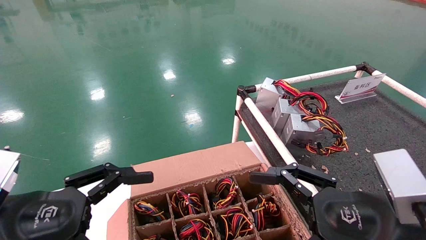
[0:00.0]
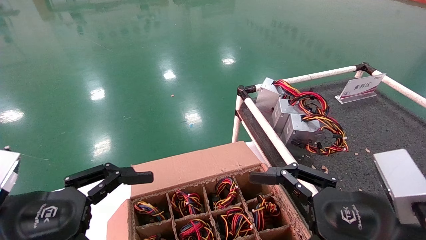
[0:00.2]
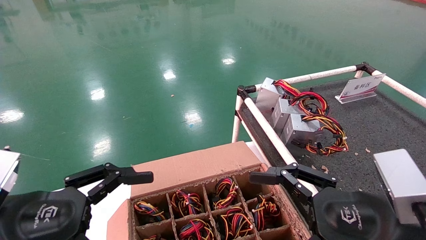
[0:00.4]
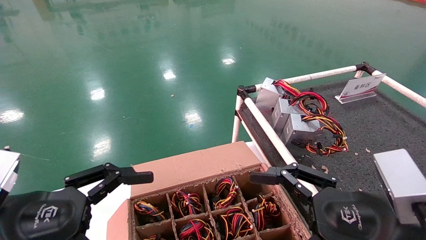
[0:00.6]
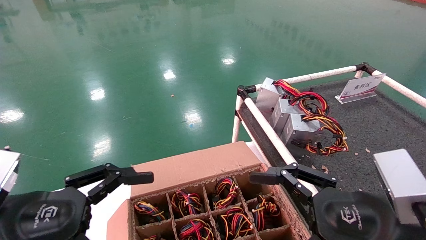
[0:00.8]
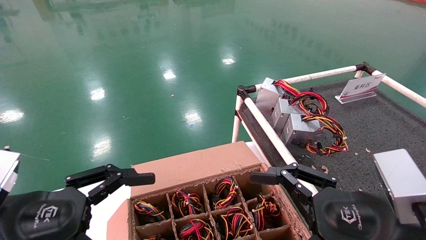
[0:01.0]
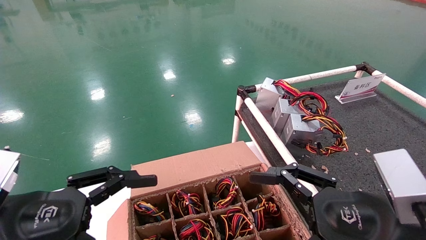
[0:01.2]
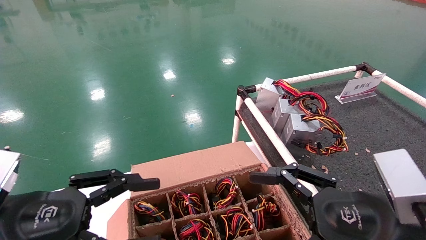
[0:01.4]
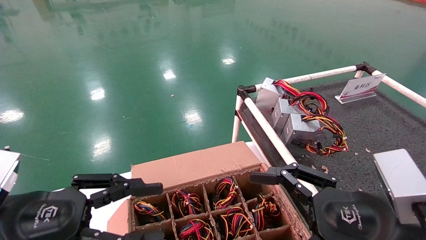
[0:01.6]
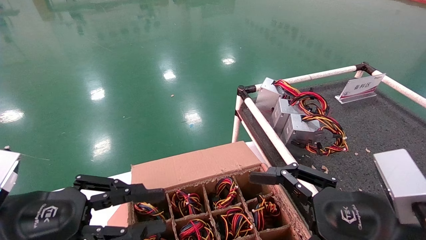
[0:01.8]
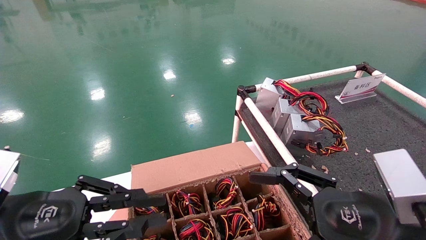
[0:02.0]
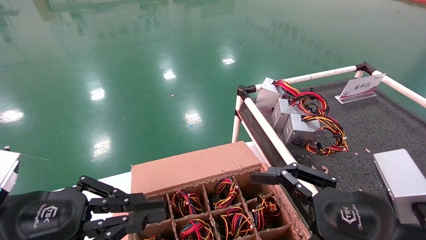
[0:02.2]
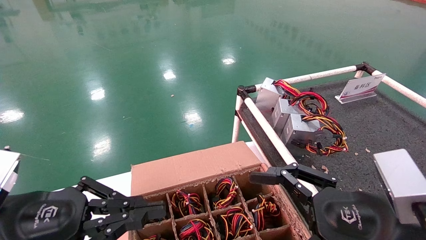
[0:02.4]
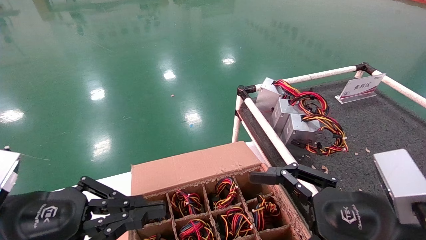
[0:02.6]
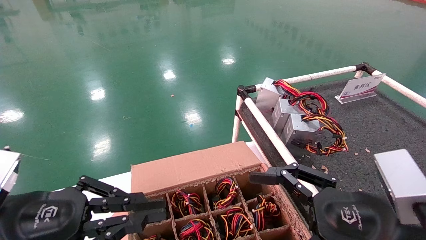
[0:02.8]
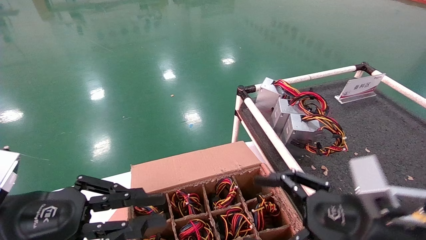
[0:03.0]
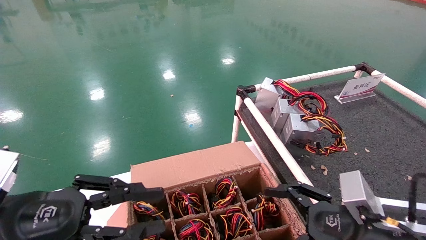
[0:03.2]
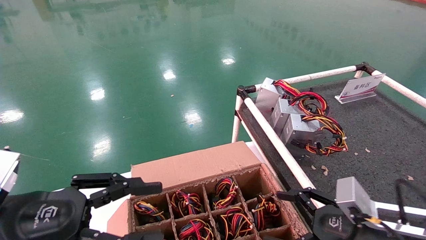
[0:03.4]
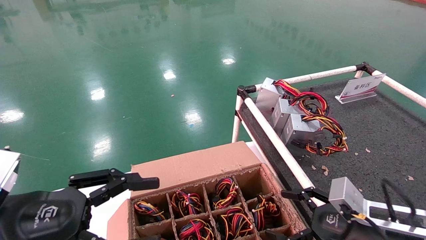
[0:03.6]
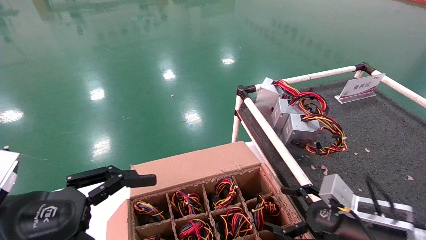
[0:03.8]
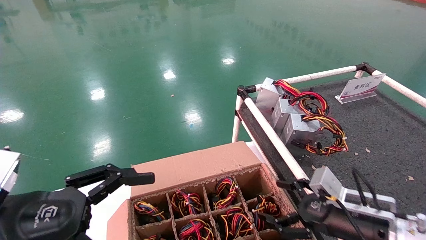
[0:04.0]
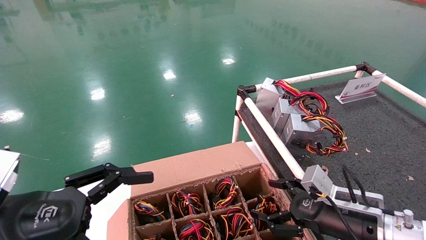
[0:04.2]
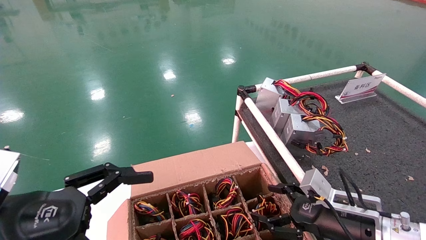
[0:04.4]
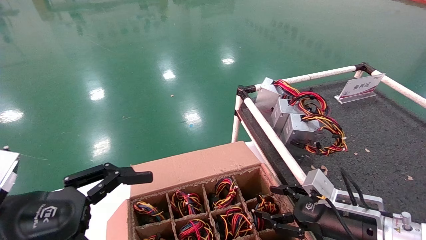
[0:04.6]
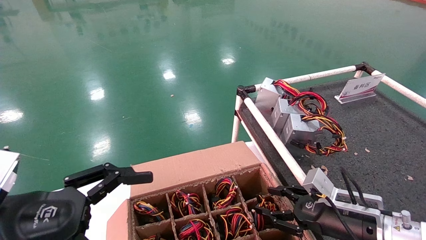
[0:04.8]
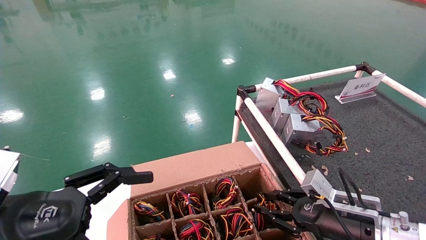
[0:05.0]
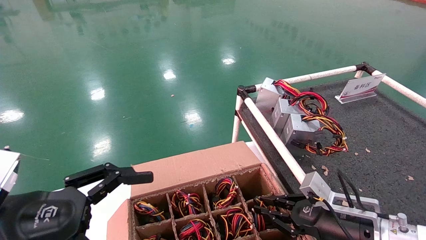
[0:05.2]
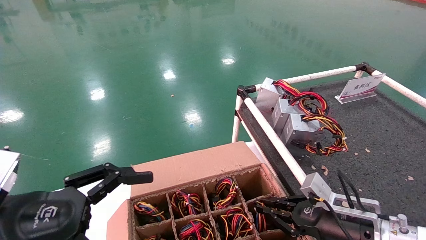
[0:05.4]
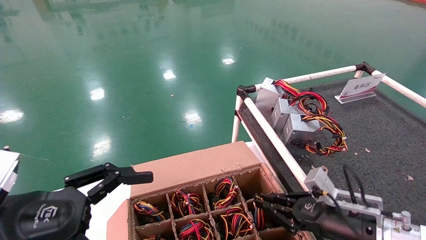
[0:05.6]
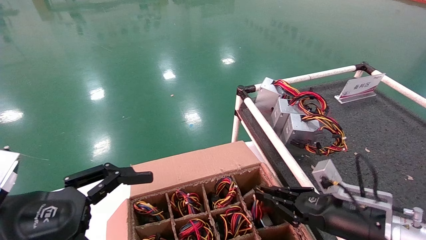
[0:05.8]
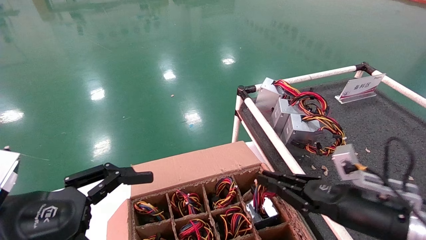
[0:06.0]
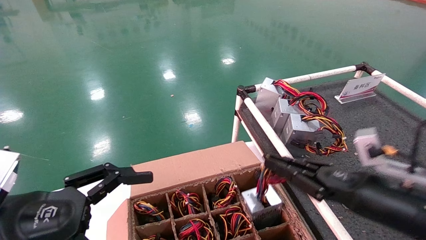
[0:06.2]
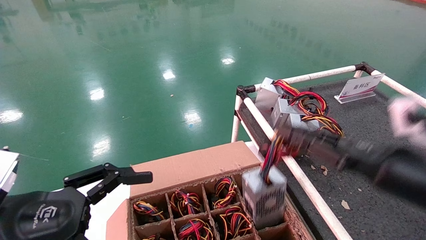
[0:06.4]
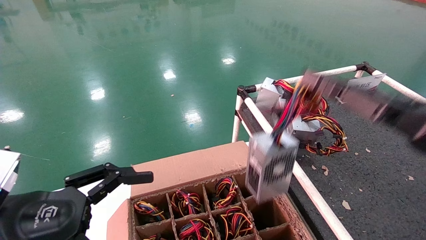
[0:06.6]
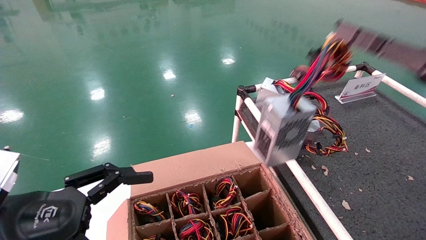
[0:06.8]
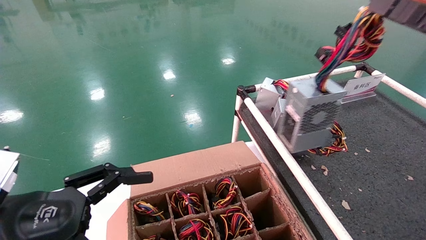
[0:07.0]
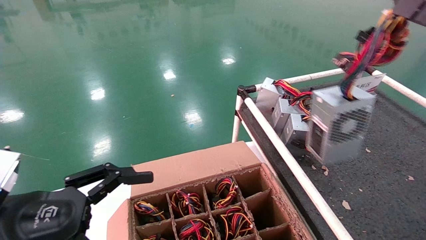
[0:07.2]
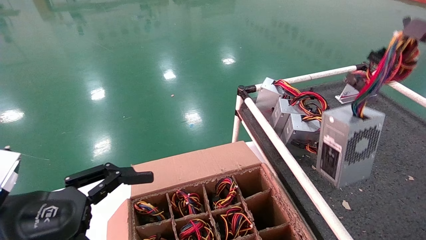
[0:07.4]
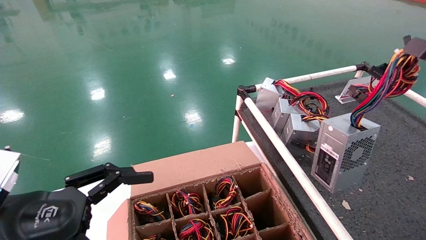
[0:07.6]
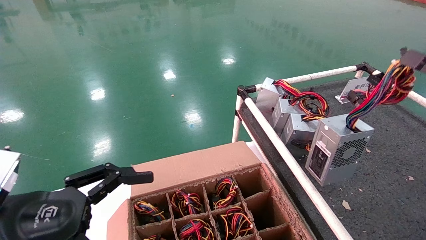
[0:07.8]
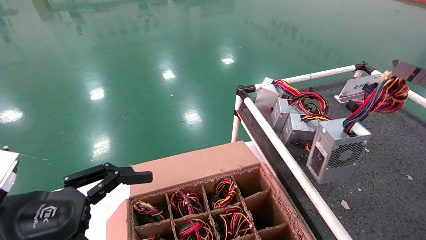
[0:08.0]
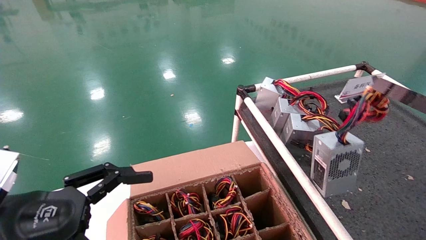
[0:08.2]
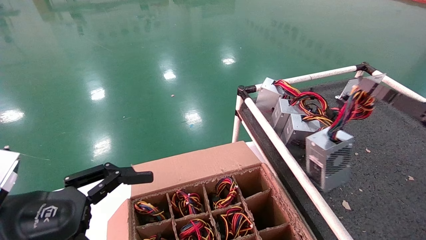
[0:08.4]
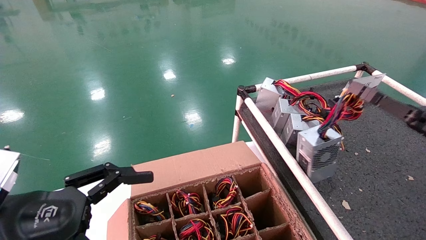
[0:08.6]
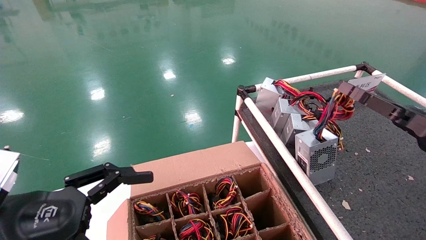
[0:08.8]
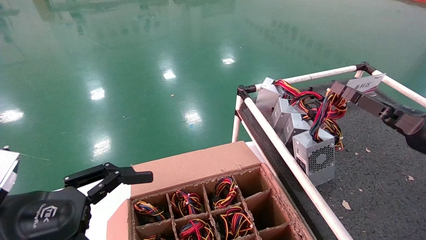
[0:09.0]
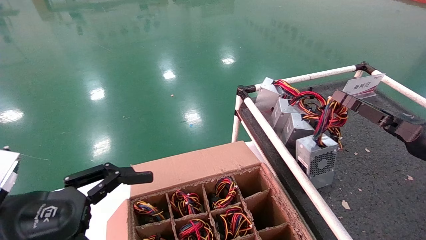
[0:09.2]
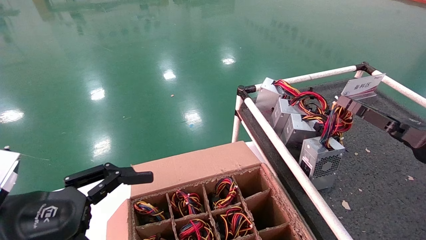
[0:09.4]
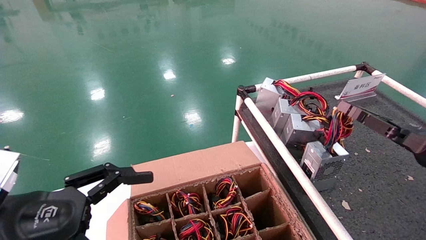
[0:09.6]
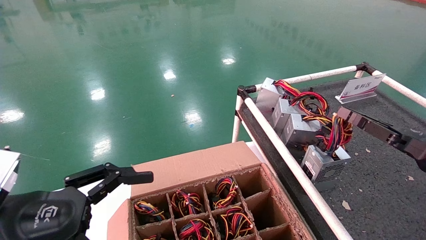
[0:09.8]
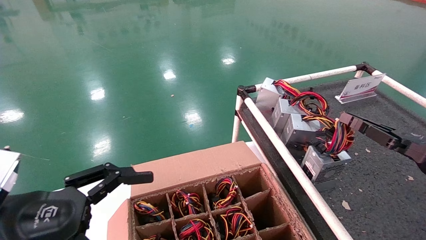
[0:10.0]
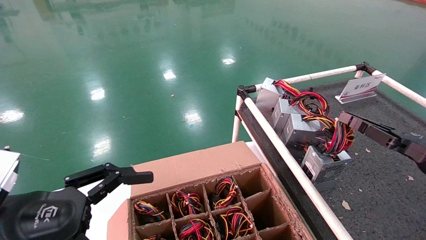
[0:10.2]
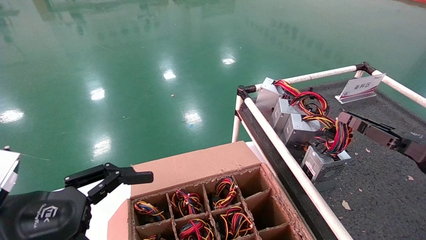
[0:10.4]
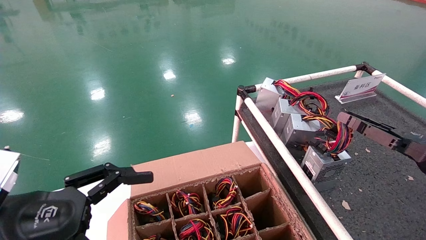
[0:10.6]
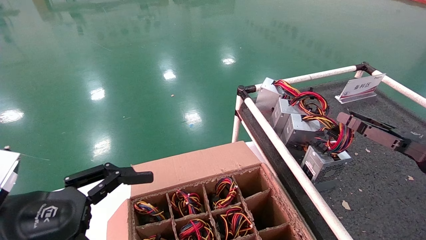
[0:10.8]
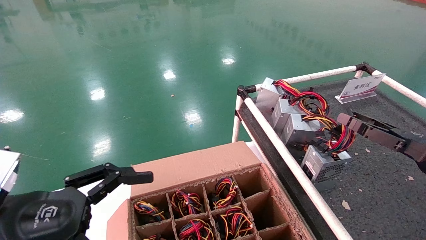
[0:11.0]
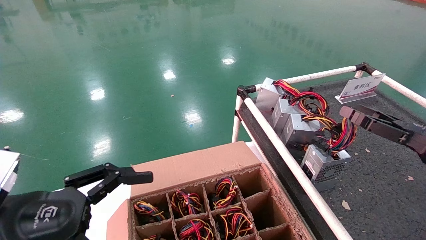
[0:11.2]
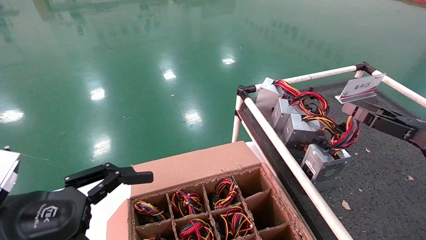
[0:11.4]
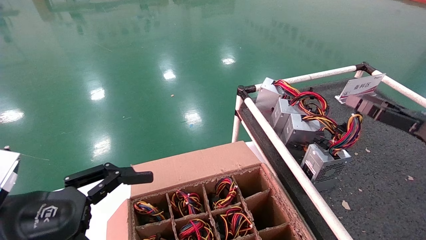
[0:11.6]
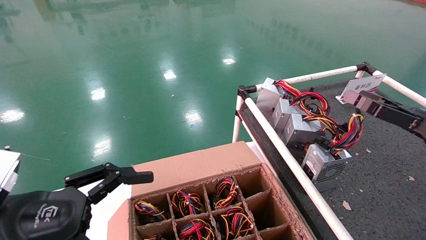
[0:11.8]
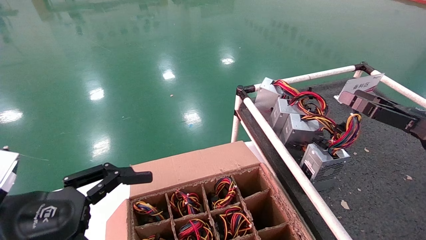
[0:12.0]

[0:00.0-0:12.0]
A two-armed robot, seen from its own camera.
Step, 0:00.8 to 0:05.2: Grab and lift the power supply from the large box.
Step, 0:05.4 to 0:10.2: Place the power supply on the operating table.
0:00.0 to 0:01.6: The left gripper closes.
0:01.6 to 0:03.0: The left gripper closes.
0:03.0 to 0:04.4: The right gripper shifts about 10 cm forward and downward, while the left gripper opens up.
0:04.4 to 0:06.0: The right gripper ends up approximately 5 cm from where it was, and closes its fingers.
0:06.0 to 0:07.6: The right gripper is displaced upward, to the right and backward by roughly 25 cm.
0:07.6 to 0:09.0: The right gripper moves forward and downward, about 15 cm.
0:09.0 to 0:10.4: The grippers make only small movements.
0:10.4 to 0:12.0: The right gripper ends up about 5 cm from where it was, and opens up.

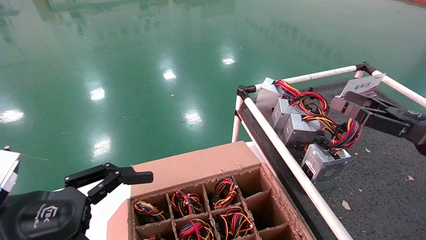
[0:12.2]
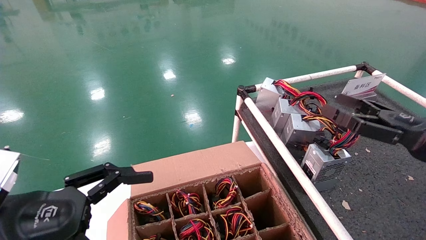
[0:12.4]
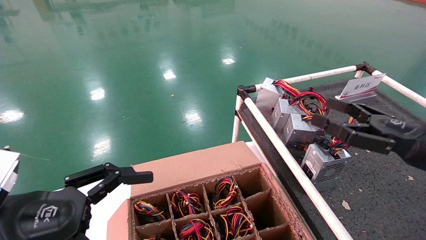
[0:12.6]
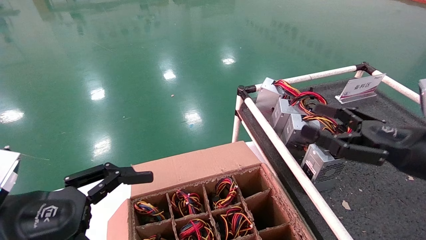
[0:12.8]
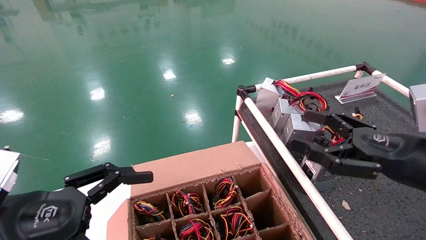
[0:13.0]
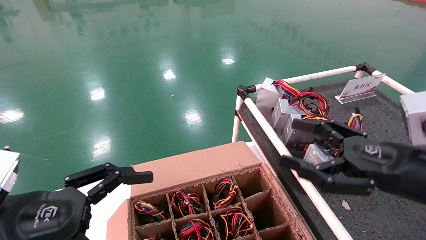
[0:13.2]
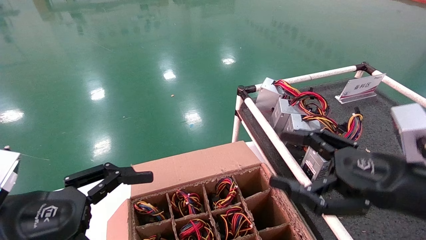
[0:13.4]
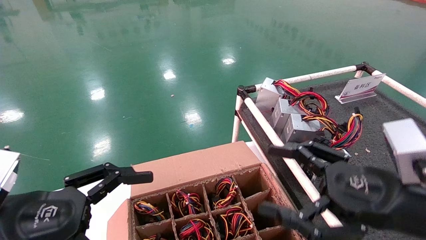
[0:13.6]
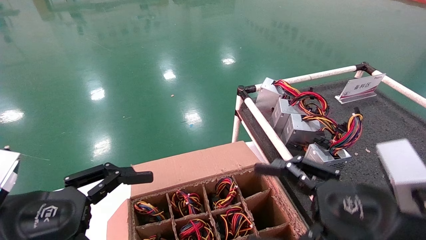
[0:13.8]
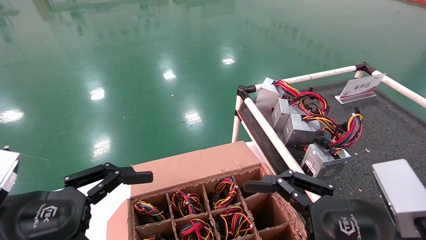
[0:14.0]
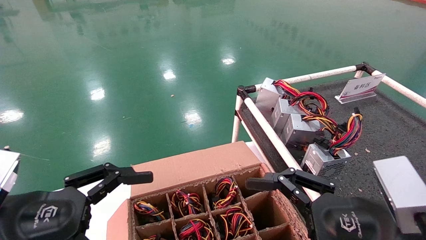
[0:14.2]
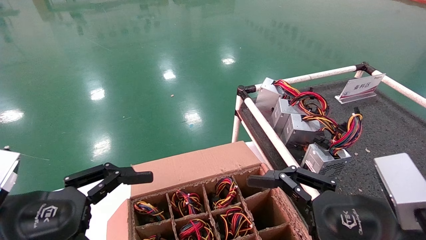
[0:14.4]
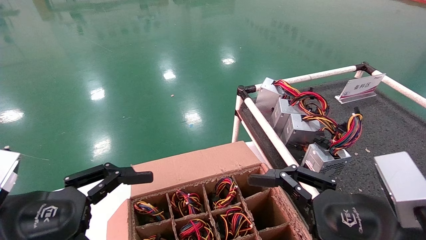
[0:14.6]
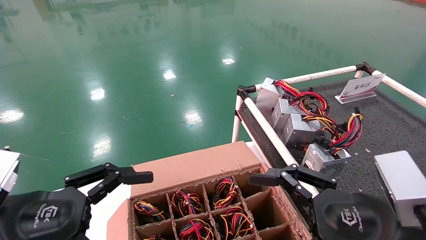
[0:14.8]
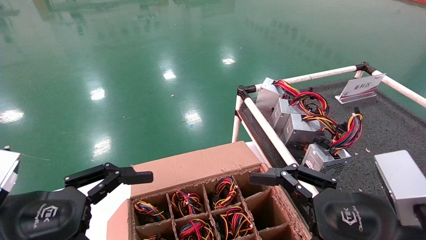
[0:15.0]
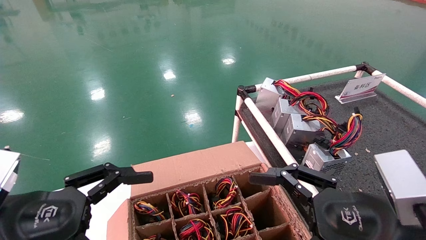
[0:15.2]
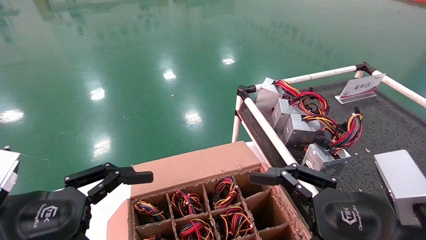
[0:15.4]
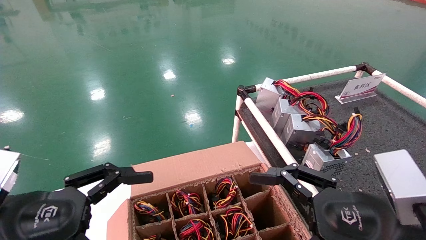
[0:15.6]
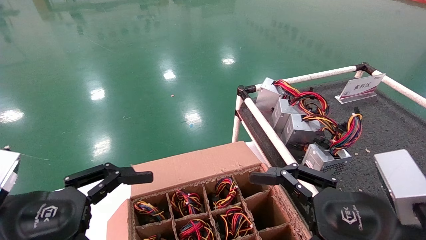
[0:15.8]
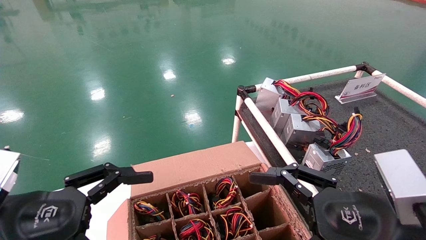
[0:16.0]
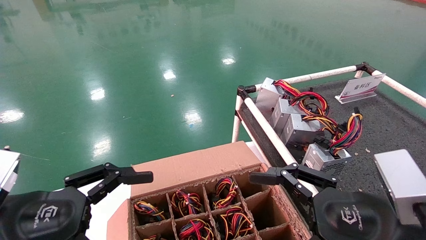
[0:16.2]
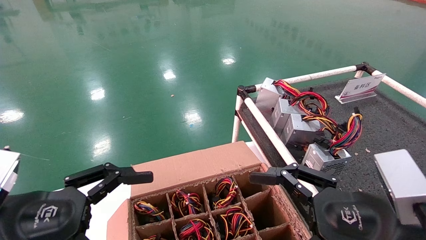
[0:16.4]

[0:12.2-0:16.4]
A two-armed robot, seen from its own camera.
0:12.2 to 0:13.6: The right gripper goes roughly 15 cm to the left and backward.
0:13.6 to 0:15.0: The grippers make only small movements.
0:15.0 to 0:16.4: Both grippers stay put.
